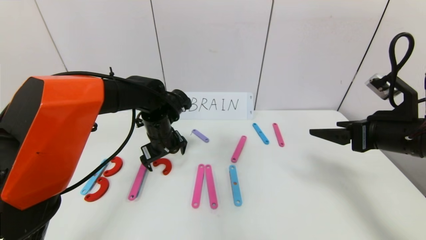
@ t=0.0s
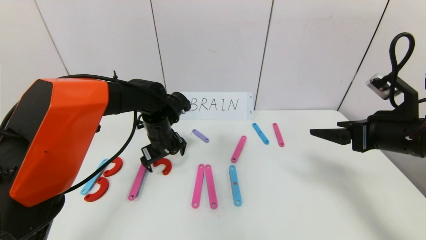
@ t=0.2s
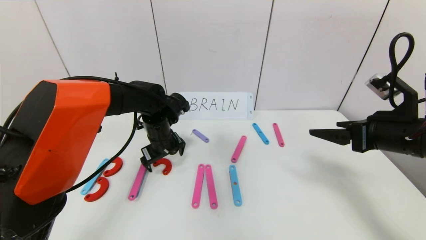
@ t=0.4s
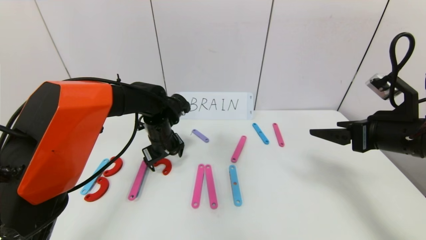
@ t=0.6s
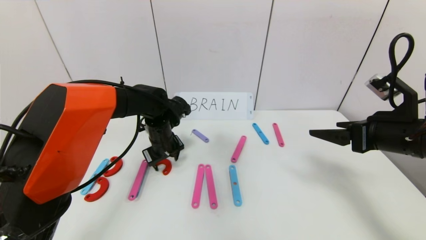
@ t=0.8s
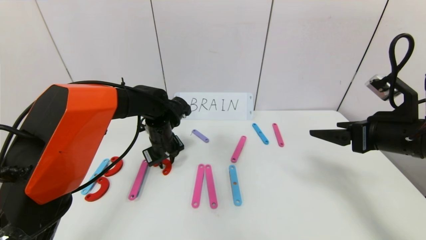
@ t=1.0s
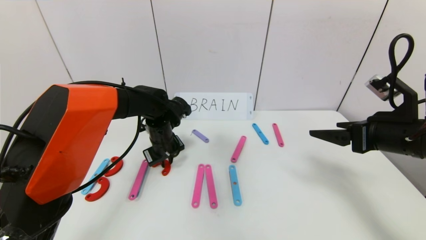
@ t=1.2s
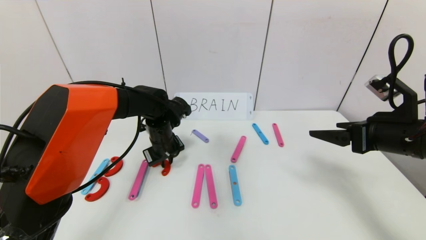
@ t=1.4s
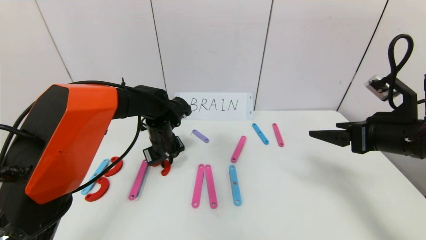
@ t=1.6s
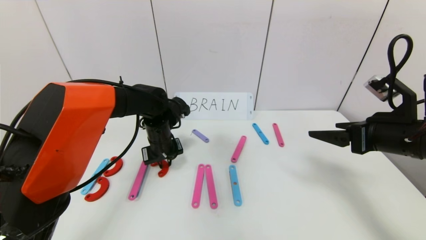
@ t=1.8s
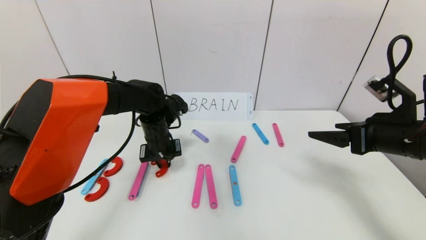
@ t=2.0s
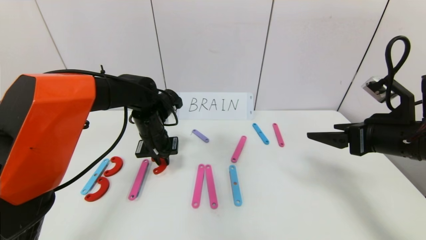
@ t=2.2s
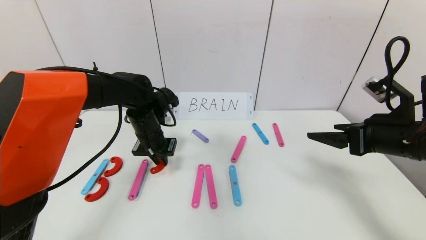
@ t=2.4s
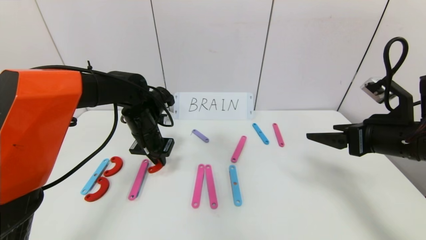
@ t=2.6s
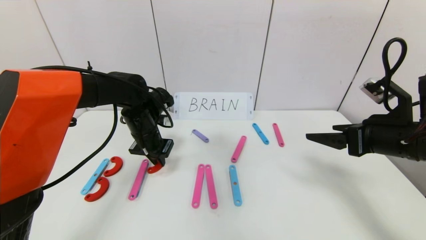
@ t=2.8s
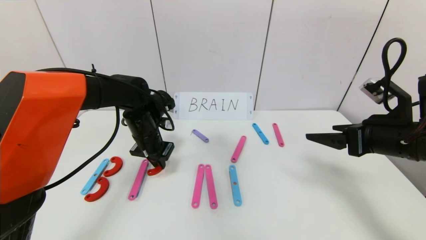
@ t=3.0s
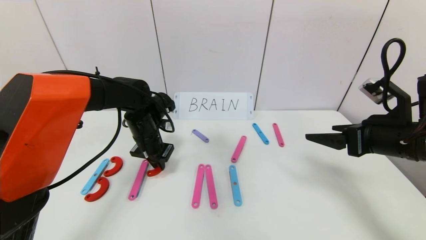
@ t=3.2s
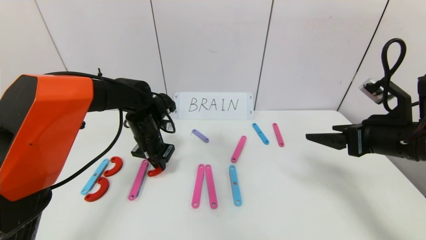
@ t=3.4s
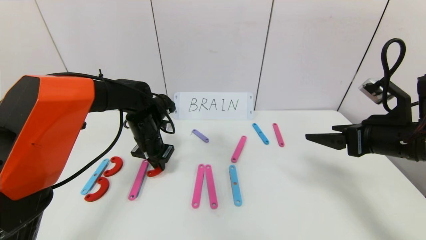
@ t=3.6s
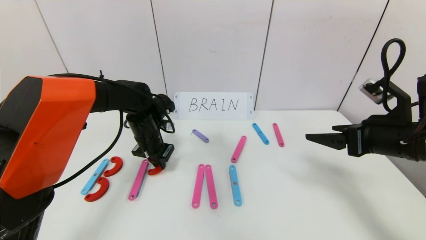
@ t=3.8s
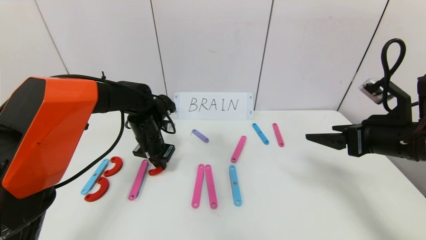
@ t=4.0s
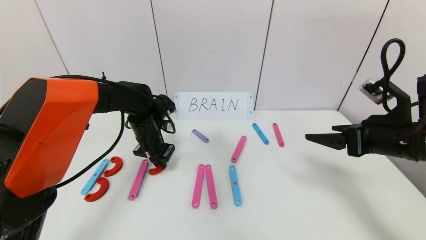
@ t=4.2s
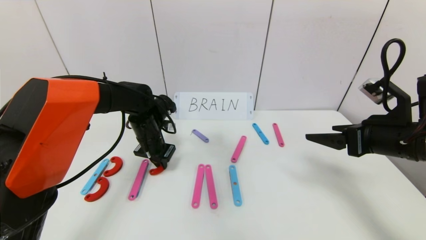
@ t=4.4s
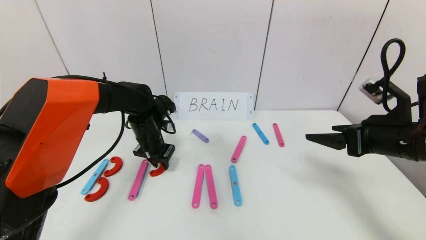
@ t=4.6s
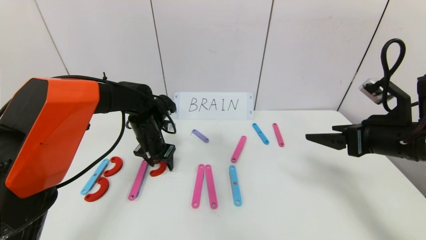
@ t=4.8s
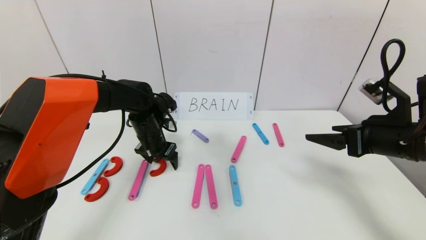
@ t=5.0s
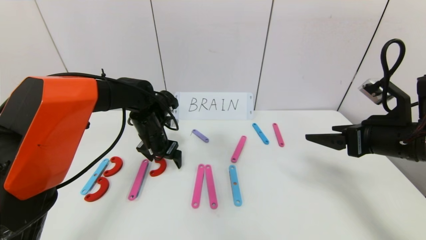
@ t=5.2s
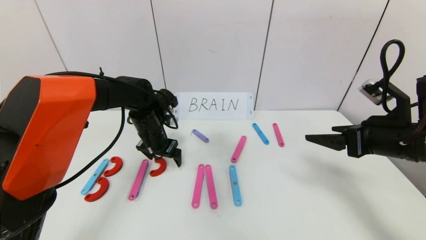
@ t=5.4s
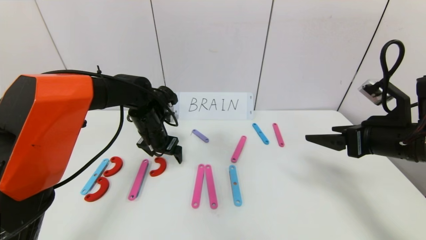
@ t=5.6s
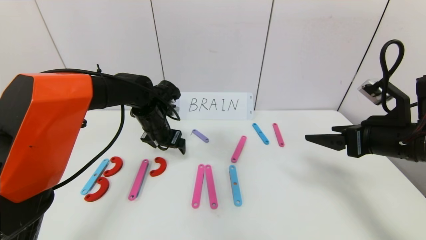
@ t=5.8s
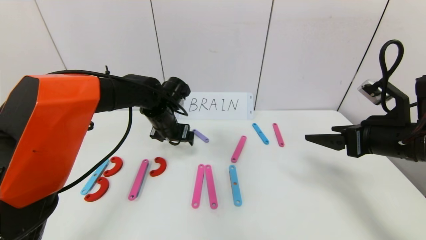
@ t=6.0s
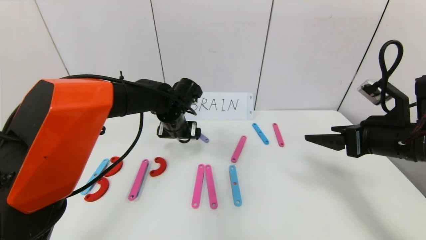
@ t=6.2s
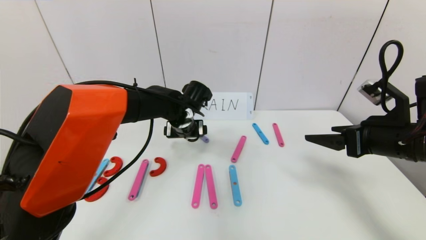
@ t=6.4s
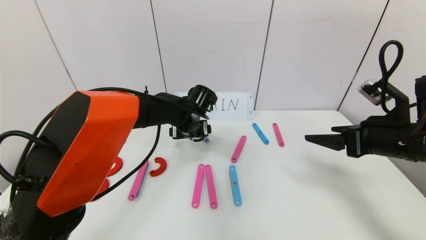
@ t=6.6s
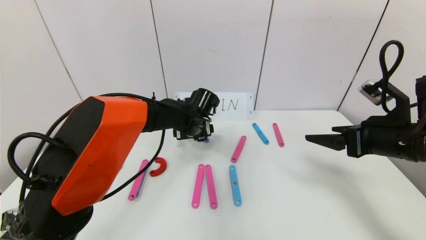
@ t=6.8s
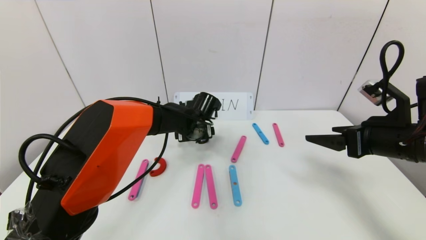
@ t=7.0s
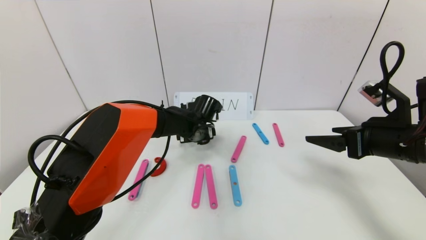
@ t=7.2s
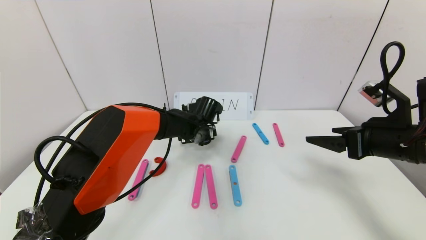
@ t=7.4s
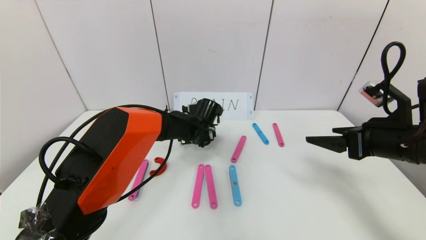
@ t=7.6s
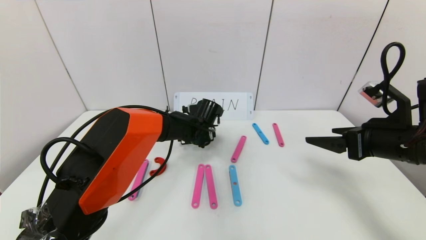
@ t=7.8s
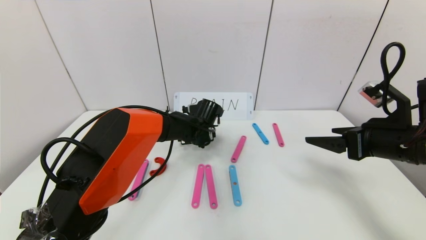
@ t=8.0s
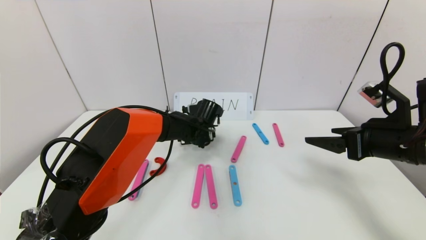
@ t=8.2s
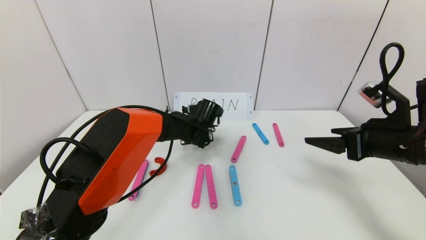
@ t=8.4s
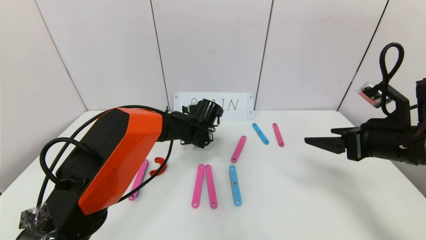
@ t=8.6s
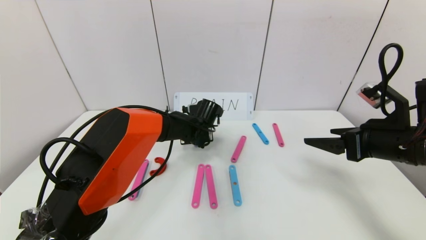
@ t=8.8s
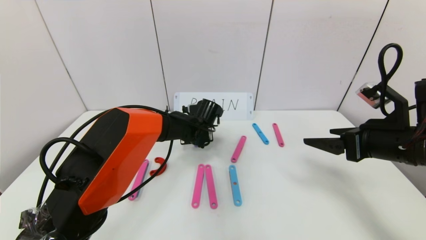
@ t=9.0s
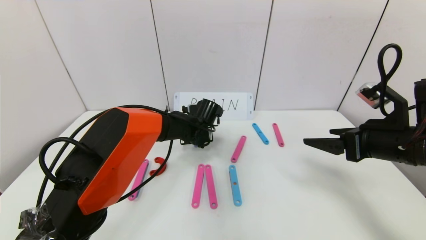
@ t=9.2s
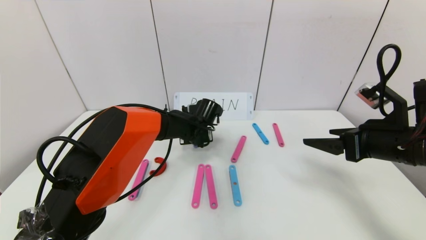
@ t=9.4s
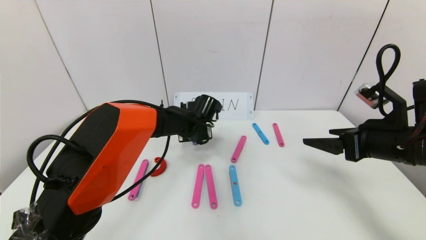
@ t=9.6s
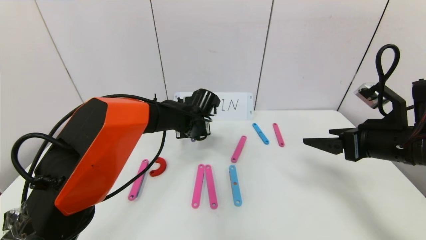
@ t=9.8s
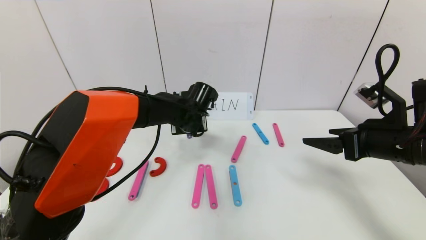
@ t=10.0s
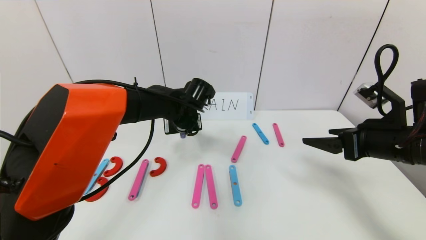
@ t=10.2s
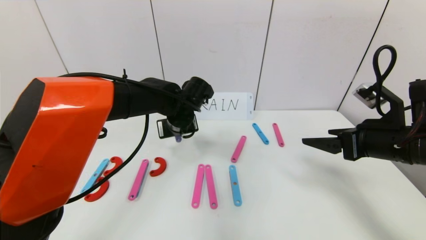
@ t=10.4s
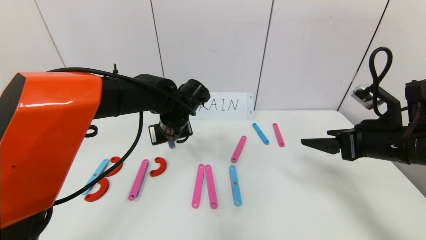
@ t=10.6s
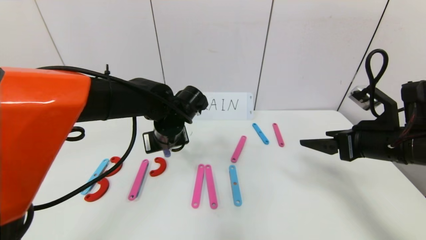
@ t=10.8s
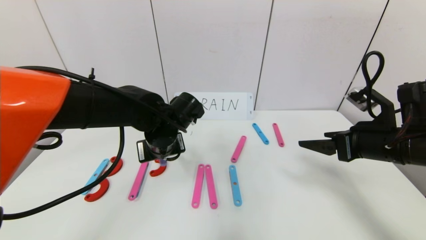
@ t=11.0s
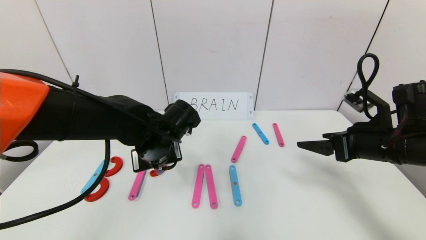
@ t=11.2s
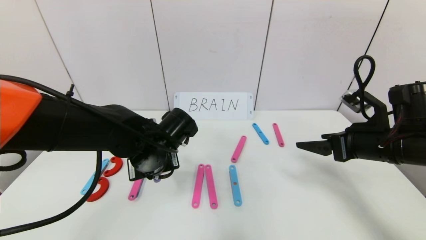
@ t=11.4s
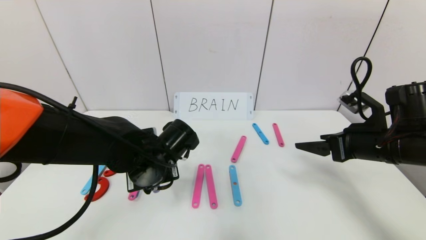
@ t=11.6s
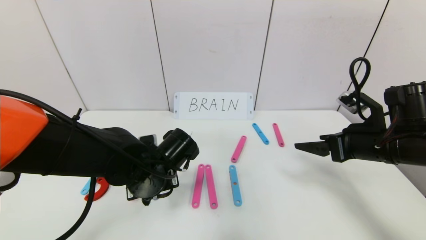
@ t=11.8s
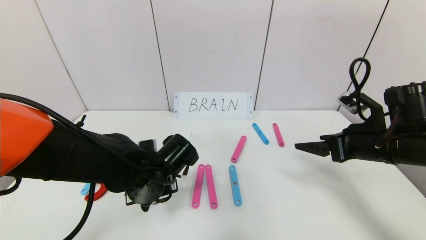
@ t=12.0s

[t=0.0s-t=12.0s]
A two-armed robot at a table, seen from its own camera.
Task of the whole recording: rearrange the word baai as brain.
t=0.0s to t=1.6s: The left gripper closes up.
t=3.0s to t=4.4s: The grippers make only small movements.
t=4.4s to t=6.0s: The left gripper shifts by about 5 cm, and opens up.
t=6.0s to t=7.6s: The left gripper moves to the right and downward, approximately 10 cm.
t=7.6s to t=9.0s: The left gripper closes up.
t=9.0s to t=10.4s: The left gripper shifts some 10 cm upward and backward.
t=10.4s to t=12.0s: The left gripper moves backward and downward, about 15 cm.

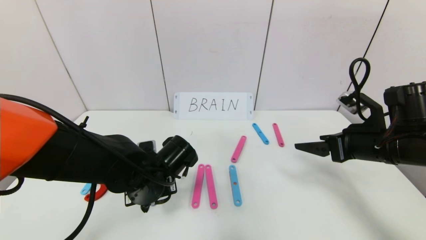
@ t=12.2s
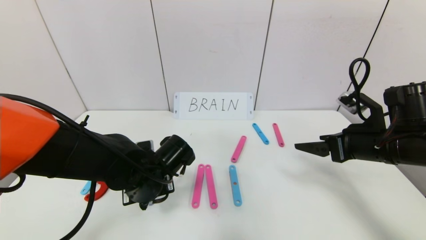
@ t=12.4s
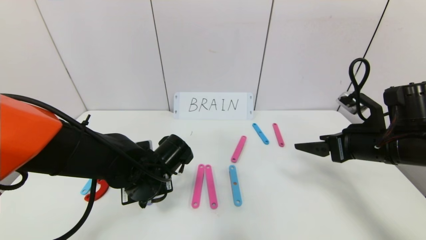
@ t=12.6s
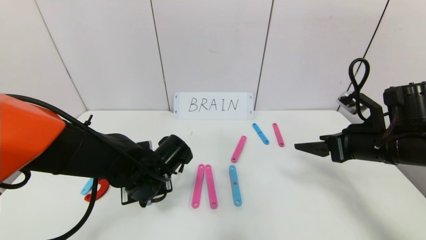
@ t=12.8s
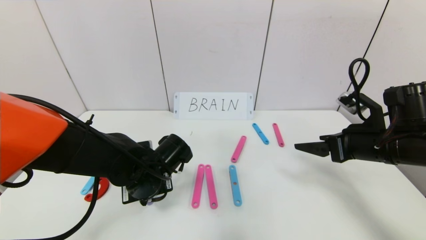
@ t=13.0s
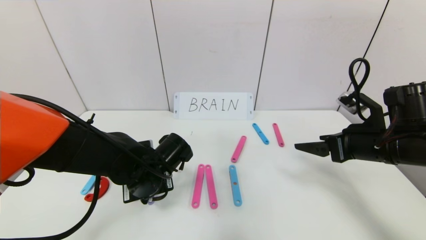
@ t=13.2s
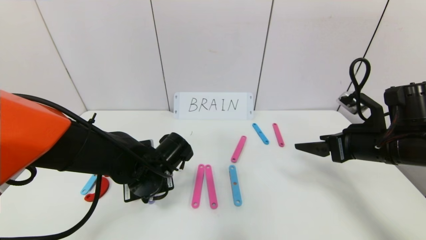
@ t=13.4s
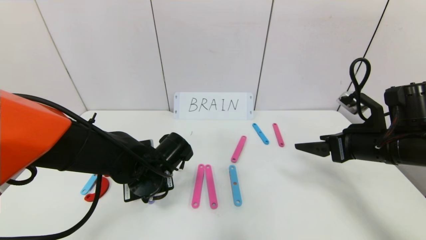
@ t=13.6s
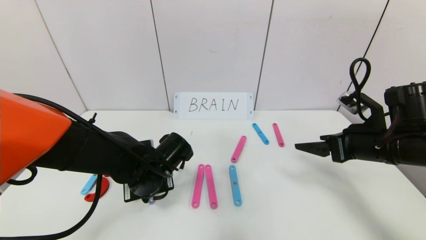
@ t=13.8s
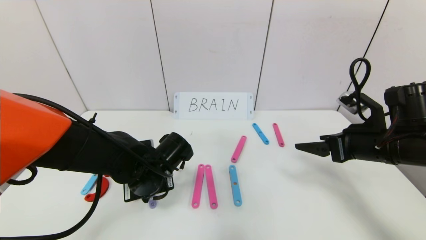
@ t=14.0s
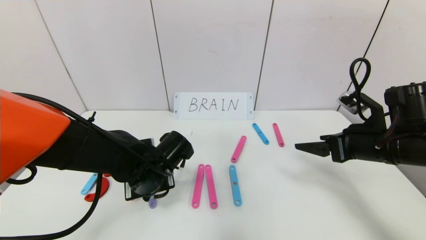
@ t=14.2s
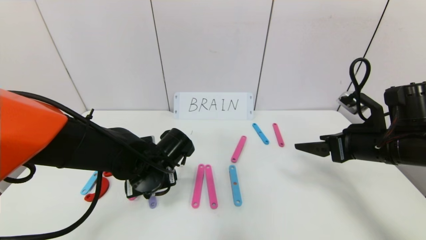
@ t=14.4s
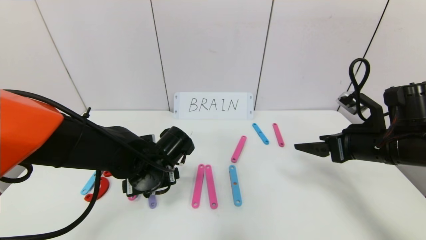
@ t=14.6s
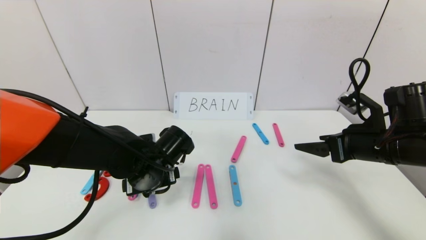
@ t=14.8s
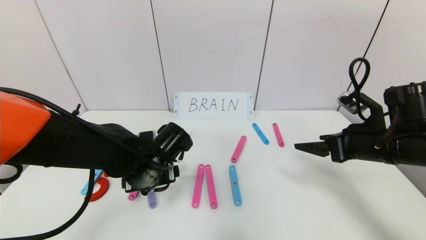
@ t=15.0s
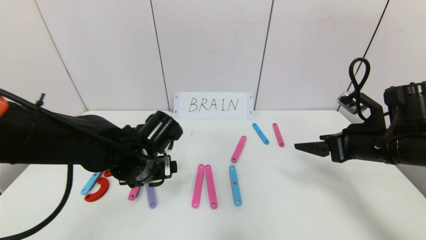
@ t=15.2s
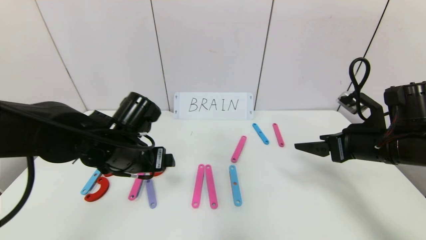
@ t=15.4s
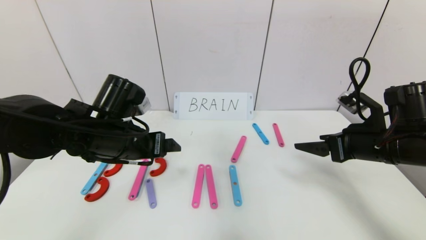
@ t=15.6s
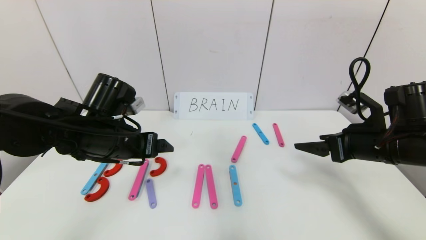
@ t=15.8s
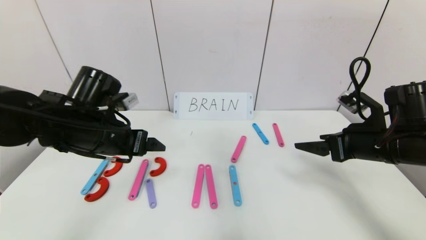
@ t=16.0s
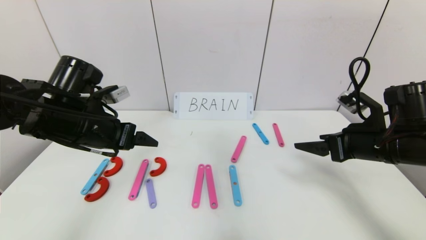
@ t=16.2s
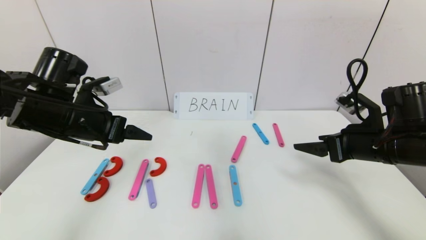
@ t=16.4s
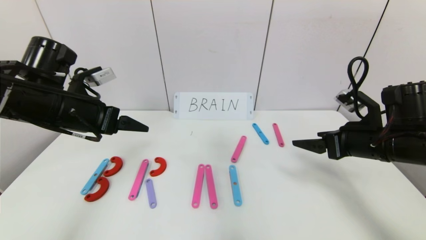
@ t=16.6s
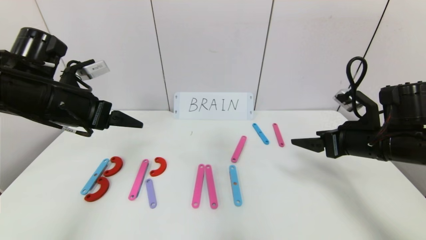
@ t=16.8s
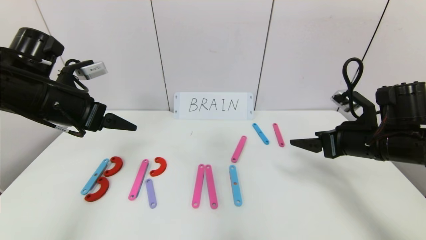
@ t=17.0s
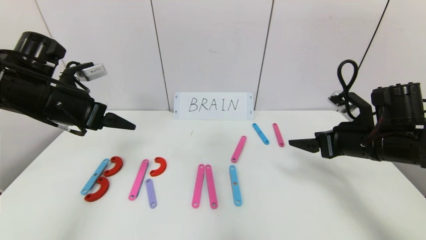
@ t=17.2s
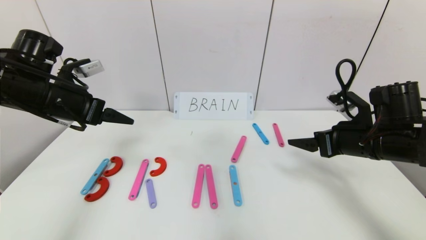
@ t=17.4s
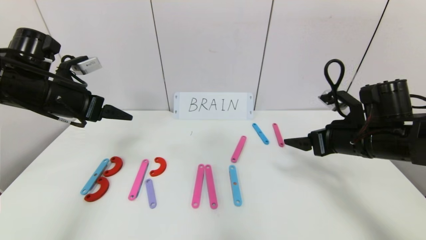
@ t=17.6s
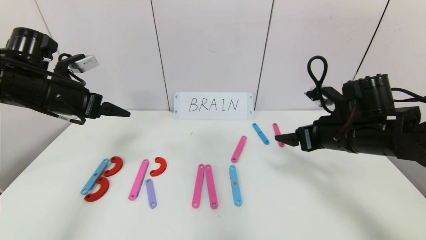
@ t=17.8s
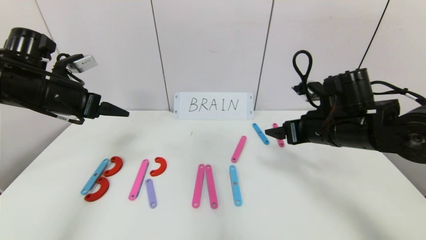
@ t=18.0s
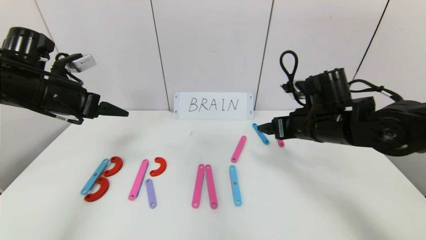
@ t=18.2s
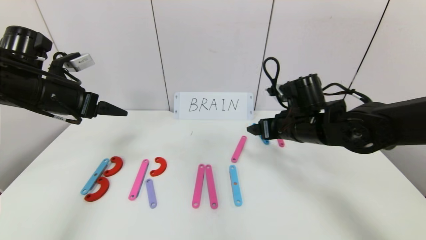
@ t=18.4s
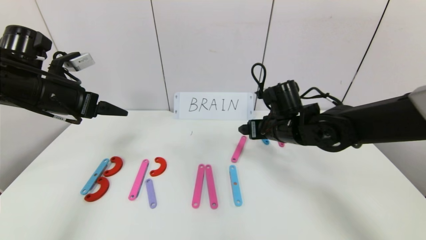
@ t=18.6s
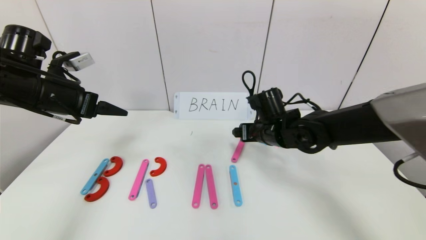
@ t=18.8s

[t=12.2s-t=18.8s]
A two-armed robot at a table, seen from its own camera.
Task of the whole recording: rearrange the word baai as brain.
t=12.2s to t=13.8s: The grippers make only small movements.
t=13.8s to t=15.4s: The left gripper is displaced upward by roughly 10 cm, and opens its fingers.
t=15.4s to t=17.2s: The left gripper goes approximately 15 cm to the left and upward.
t=17.2s to t=18.8s: The right gripper goes roughly 20 cm to the left and forward.
